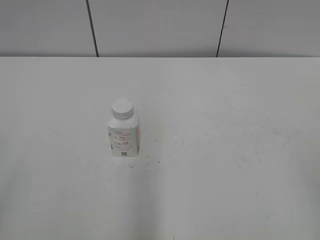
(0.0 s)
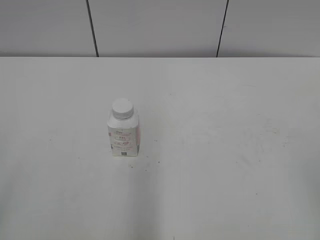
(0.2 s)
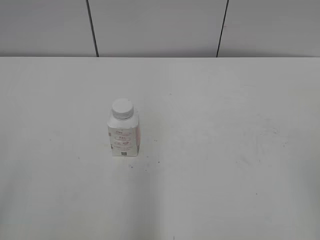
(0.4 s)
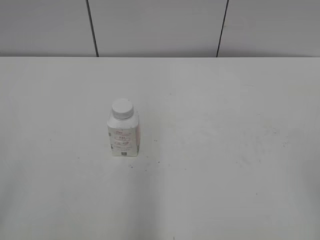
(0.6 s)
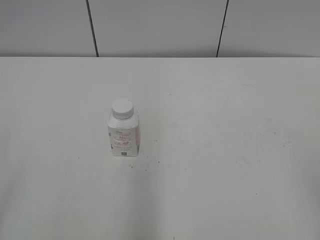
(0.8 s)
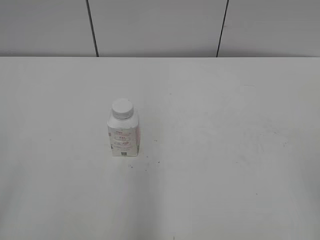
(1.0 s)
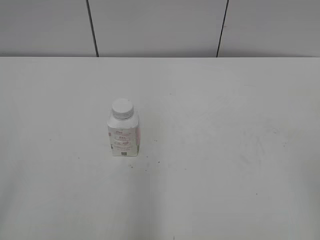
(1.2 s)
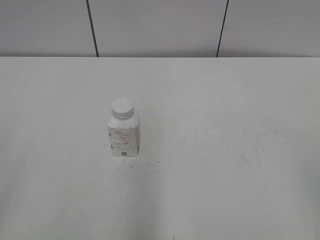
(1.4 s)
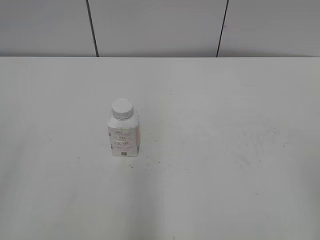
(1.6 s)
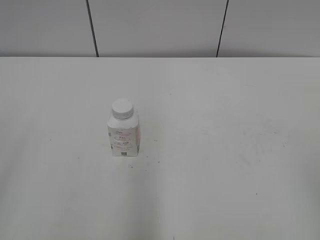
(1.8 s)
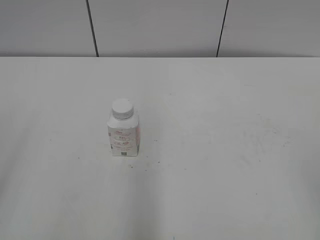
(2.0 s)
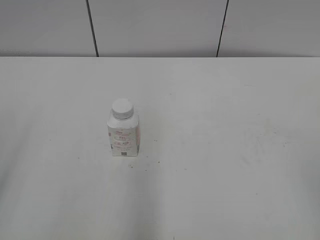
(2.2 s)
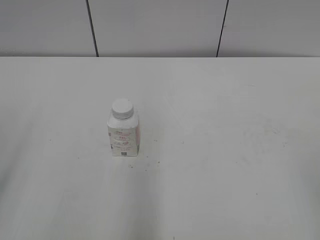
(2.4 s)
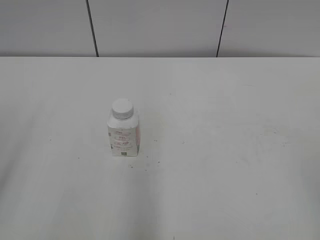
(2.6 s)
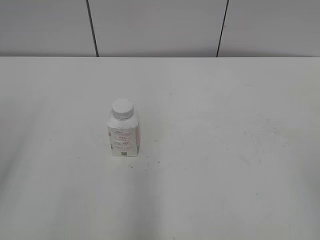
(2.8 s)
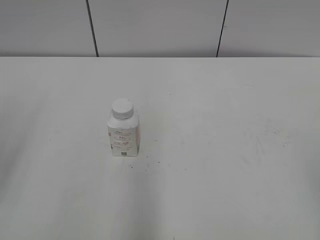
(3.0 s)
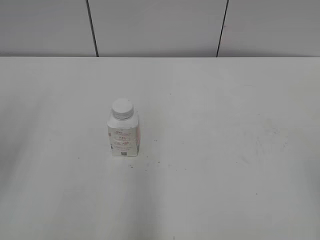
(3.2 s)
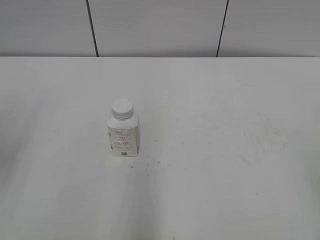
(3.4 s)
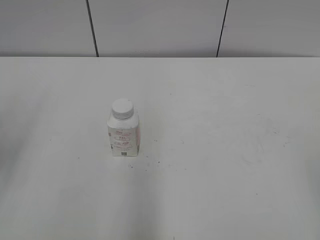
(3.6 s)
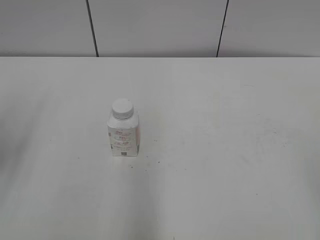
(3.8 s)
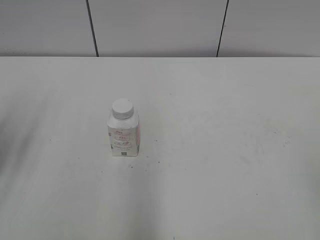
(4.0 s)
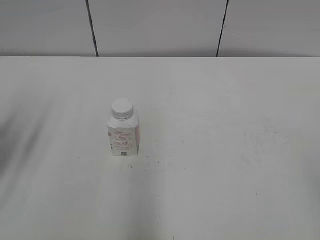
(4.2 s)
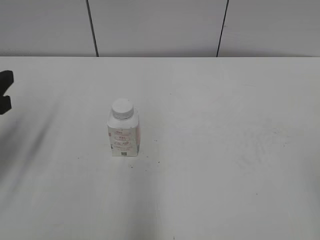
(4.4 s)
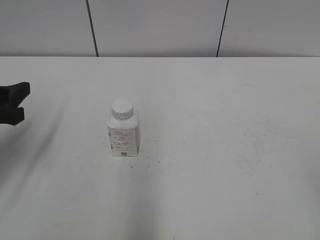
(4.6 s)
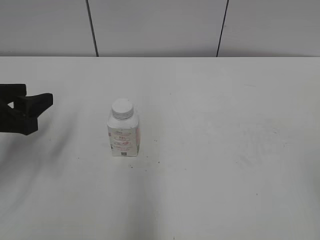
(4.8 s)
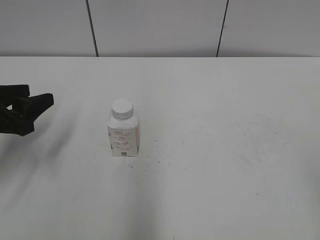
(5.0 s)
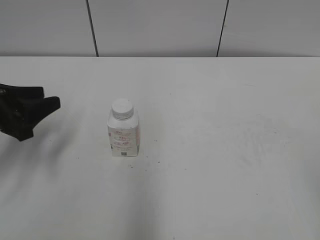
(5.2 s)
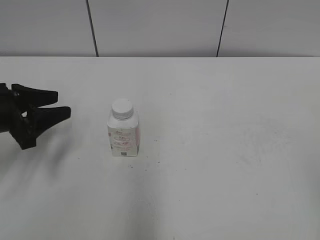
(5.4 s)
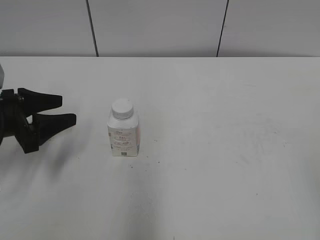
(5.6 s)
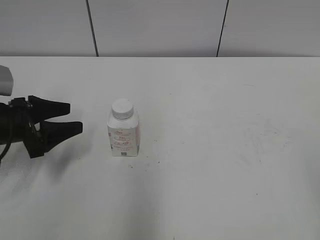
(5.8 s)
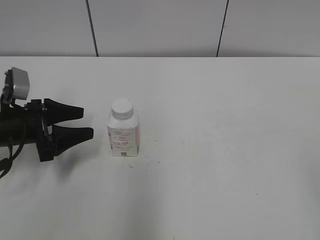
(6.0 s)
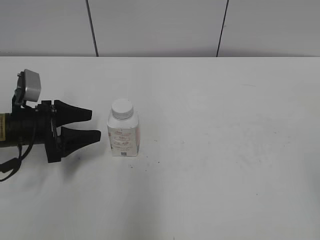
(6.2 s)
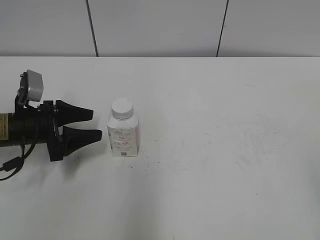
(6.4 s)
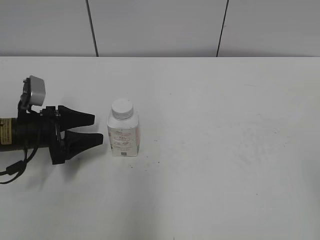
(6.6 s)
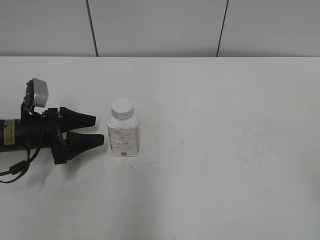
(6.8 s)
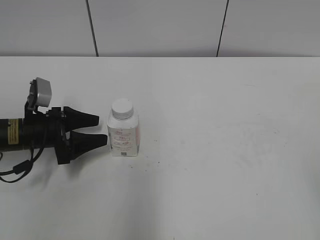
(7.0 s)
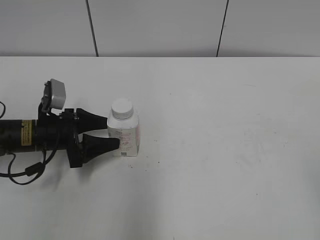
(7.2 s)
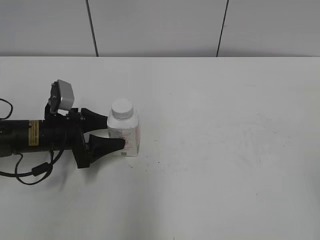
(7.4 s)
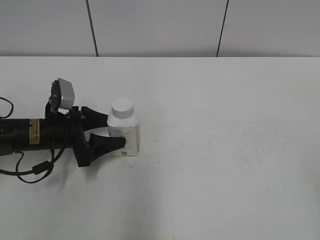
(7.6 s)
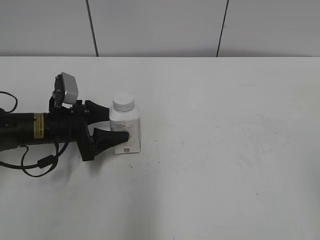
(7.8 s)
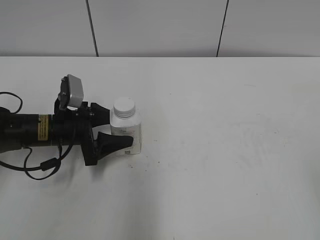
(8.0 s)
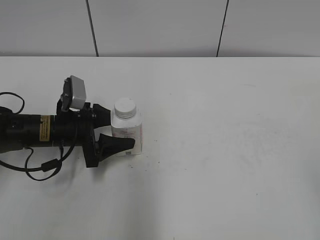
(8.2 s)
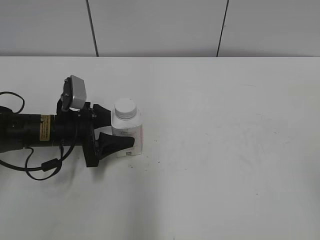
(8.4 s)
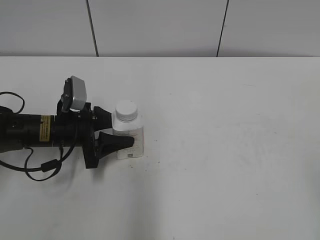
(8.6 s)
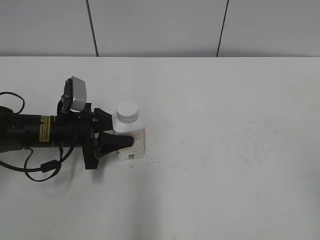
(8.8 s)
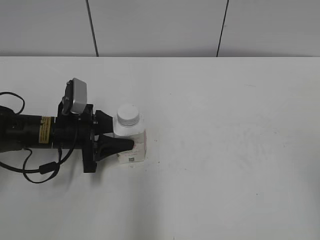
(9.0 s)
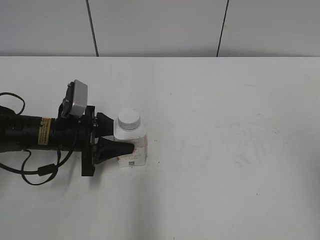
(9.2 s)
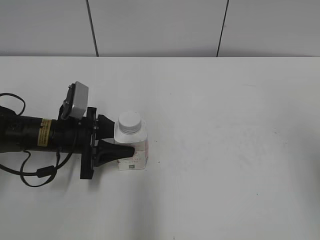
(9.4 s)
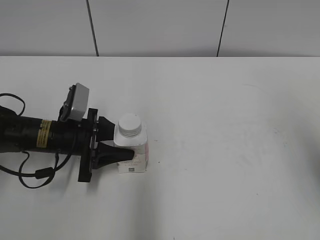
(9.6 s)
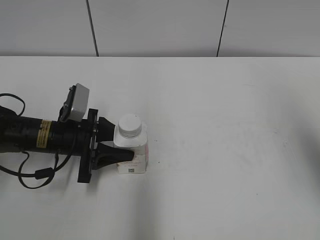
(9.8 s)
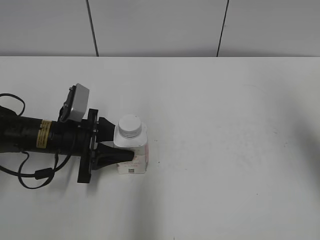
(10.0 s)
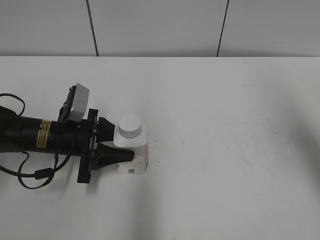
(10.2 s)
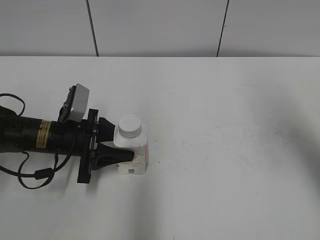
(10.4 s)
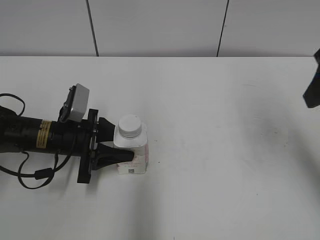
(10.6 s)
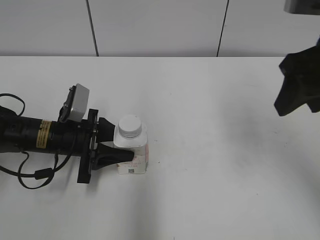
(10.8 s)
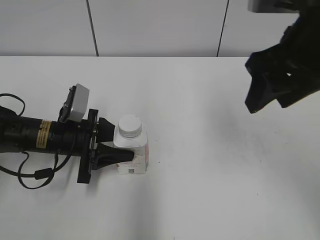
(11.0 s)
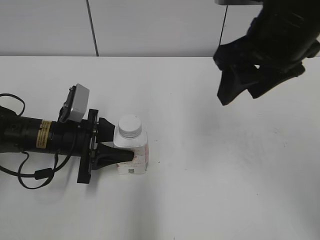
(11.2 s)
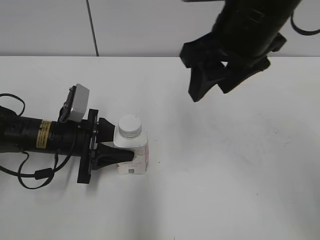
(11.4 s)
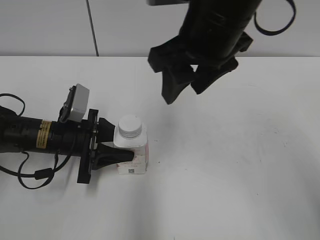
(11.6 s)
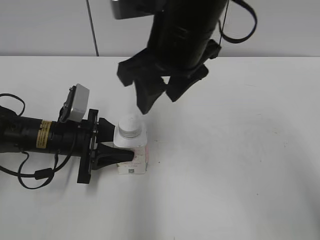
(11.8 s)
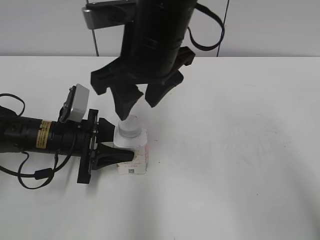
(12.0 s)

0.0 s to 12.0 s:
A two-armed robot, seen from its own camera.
Step, 0.0 to 8.8 s: Grab the Yili Changqing with the left hand.
Step, 9.0 to 10.2 s: Move the Yili Changqing from left to right.
3.0 to 4.4 s: The left gripper heads forward and downward, covering about 10 cm.
4.4 to 6.0 s: The left gripper goes about 15 cm downward and forward.
6.0 to 7.6 s: The left gripper travels to the right by roughly 5 cm.
7.6 to 9.0 s: The left gripper closes up, while the right gripper changes place by about 5 cm.
9.0 to 10.4 s: The right gripper is displaced forward by some 20 cm, and closes up.
10.4 to 12.0 s: The right gripper moves to the left, about 25 cm.

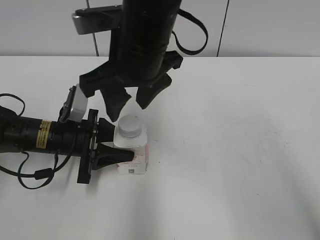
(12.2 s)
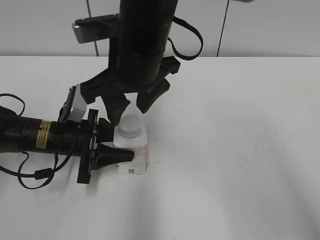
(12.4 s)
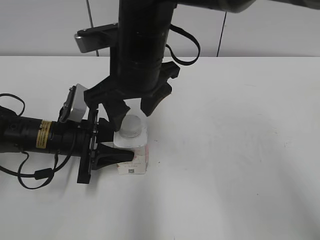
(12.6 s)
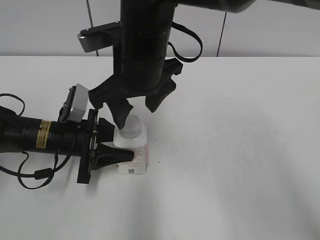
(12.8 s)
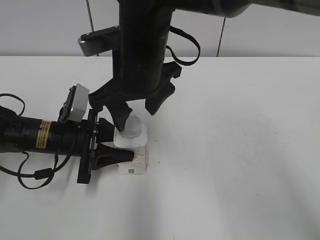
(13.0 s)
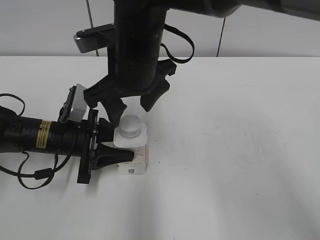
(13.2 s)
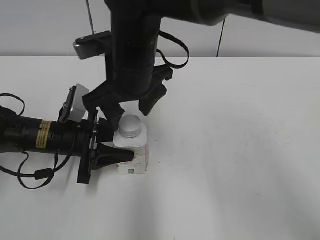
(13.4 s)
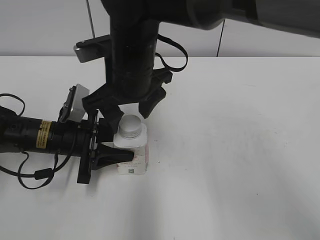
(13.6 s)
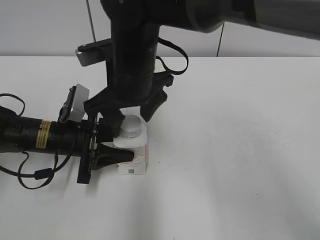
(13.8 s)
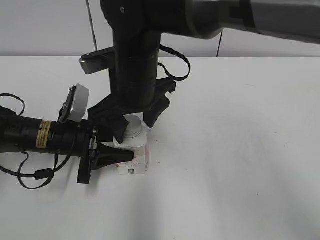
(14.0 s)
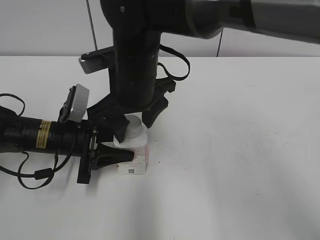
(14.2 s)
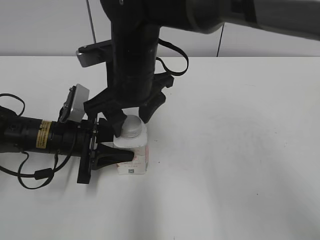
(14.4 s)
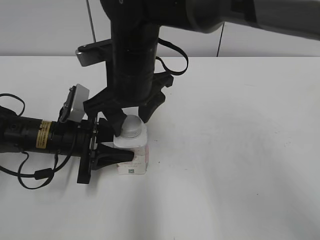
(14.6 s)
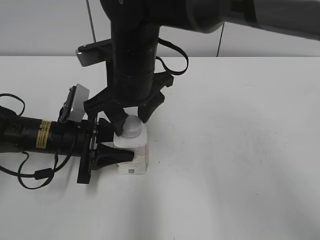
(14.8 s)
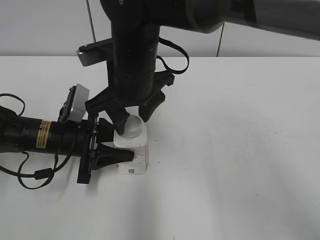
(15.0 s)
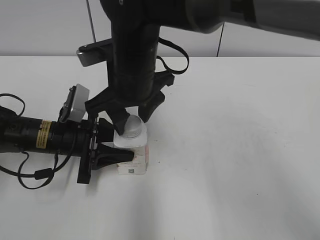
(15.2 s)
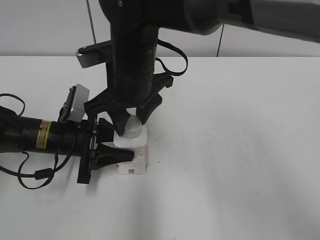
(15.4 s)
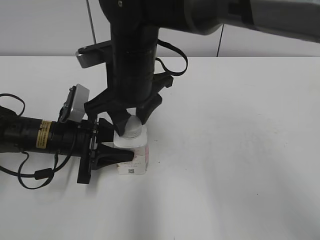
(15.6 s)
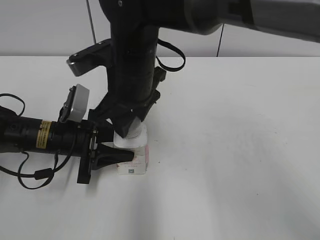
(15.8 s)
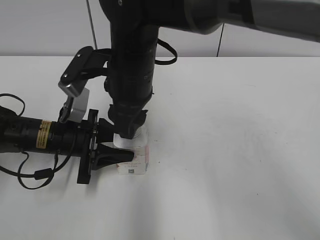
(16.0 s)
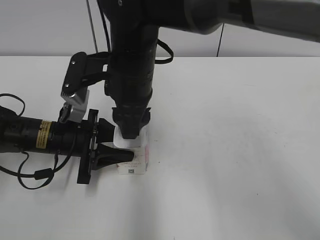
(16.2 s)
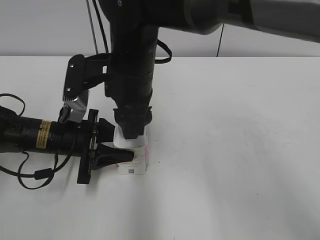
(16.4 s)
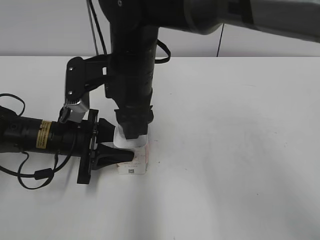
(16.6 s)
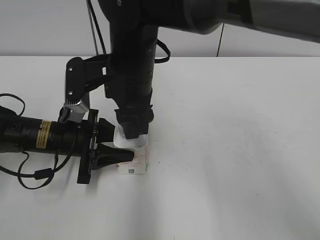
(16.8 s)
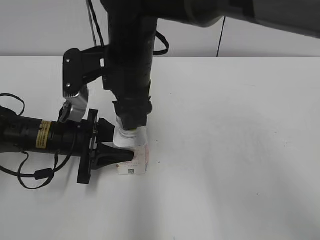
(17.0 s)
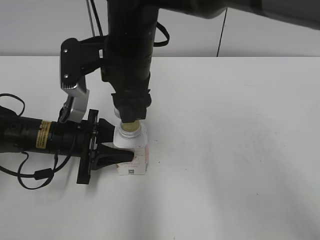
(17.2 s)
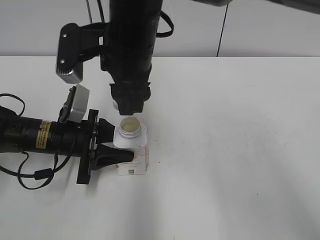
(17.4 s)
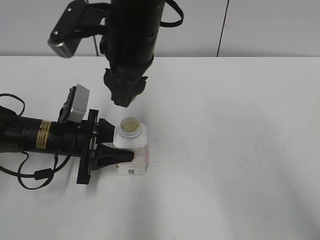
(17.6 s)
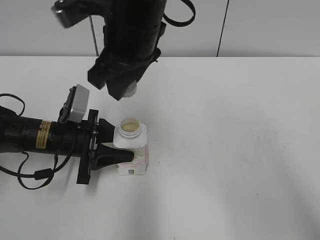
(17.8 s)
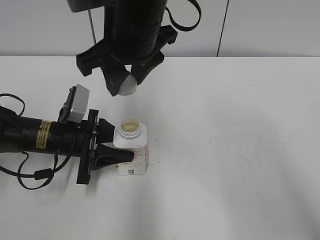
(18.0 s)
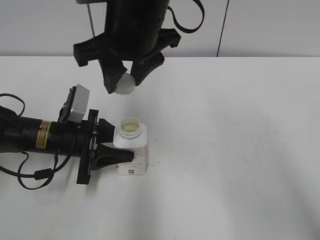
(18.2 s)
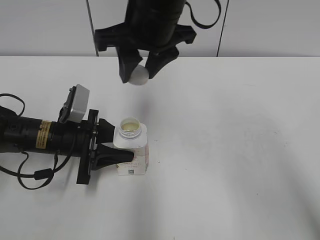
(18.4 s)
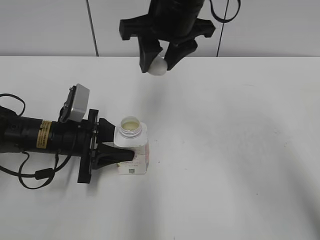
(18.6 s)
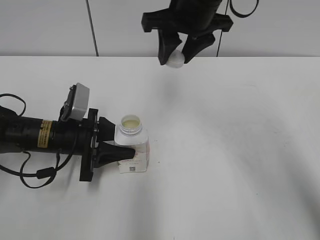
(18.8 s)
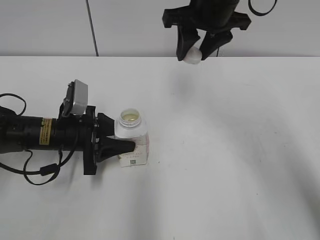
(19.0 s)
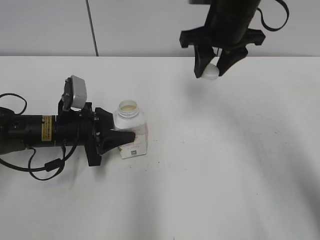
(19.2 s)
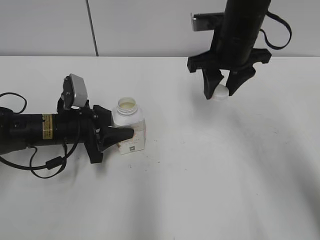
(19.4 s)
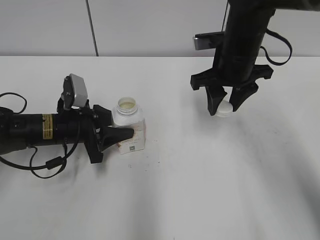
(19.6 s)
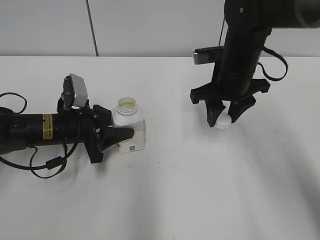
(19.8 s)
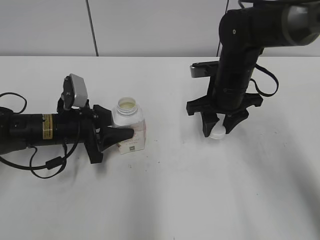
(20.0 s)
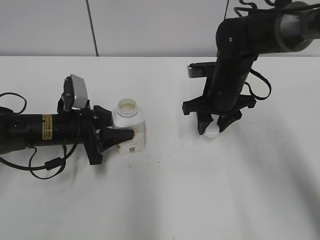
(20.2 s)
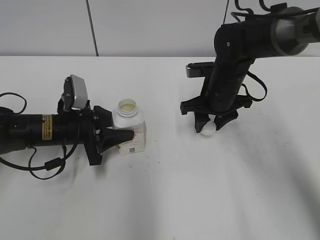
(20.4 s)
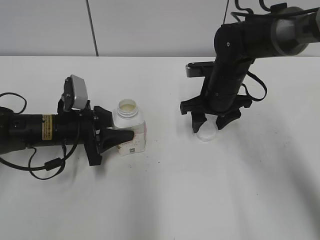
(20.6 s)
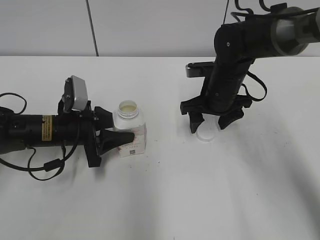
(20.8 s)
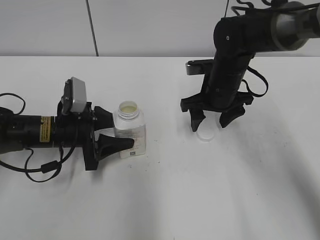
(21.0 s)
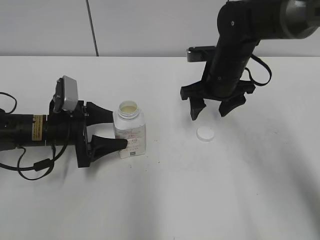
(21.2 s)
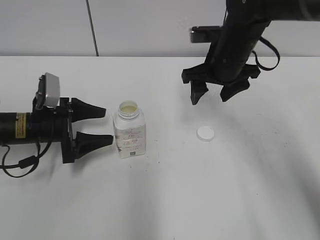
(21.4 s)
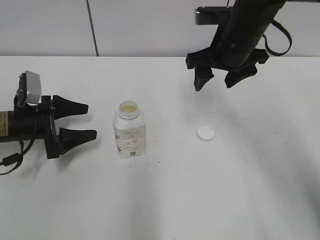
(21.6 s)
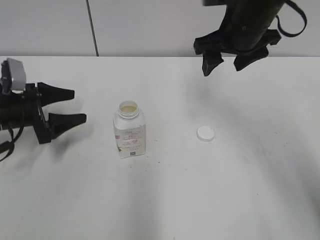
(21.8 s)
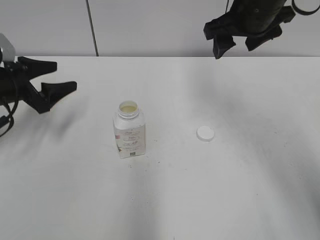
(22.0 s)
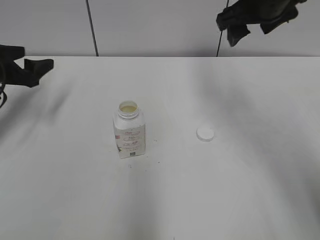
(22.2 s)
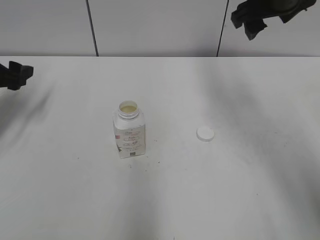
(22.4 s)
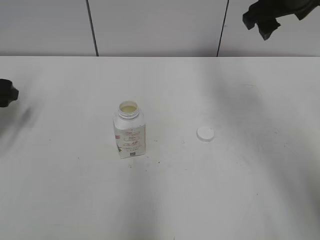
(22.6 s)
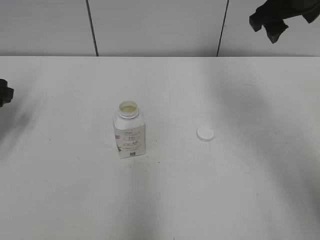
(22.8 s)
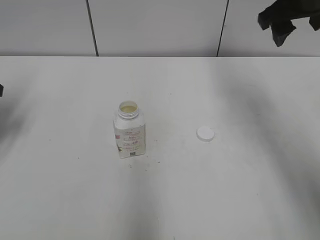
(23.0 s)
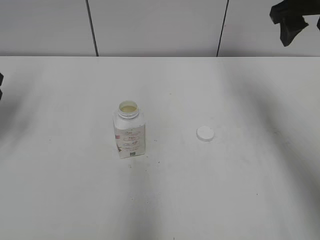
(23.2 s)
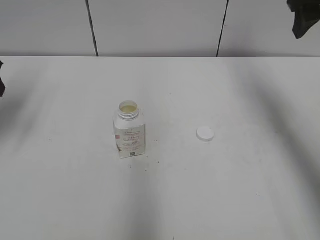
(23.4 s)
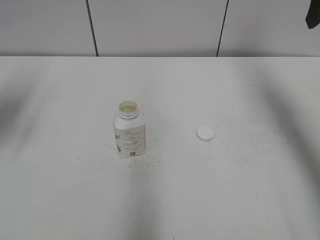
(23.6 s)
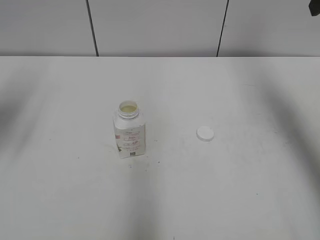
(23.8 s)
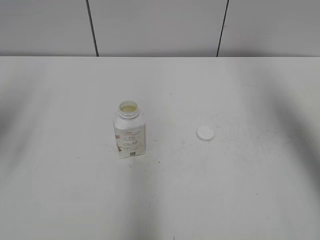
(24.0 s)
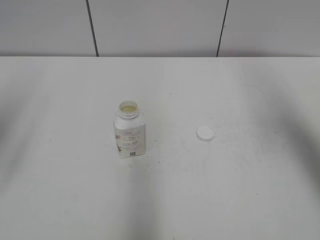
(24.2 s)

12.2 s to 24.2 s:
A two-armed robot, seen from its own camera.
Step, 12.2 to 16.8 s: Twist the bottle cap with the right hand.
Step, 17.2 to 20.6 s: Place the bottle cap on the right.
12.2 to 13.8 s: The right gripper is displaced downward by roughly 5 cm, and opens.
13.8 to 15.2 s: The right gripper closes up.
16.6 to 18.2 s: The right gripper goes about 10 cm upward.
18.2 to 19.8 s: The right gripper travels to the right, downward and forward by approximately 20 cm.
19.8 to 21.2 s: The right gripper opens its fingers, while the left gripper opens.
21.2 to 22.6 s: The right gripper heads upward, covering about 15 cm. Meanwhile the left gripper is displaced to the left and upward by about 15 cm.
22.6 to 24.2 s: The right gripper shifts approximately 15 cm backward, to the right and upward. Meanwhile the left gripper heads upward and backward, covering roughly 20 cm.
